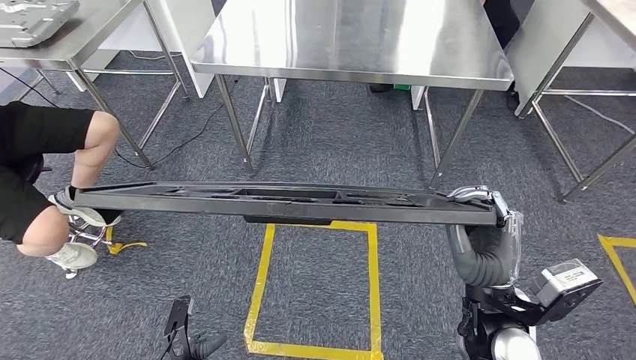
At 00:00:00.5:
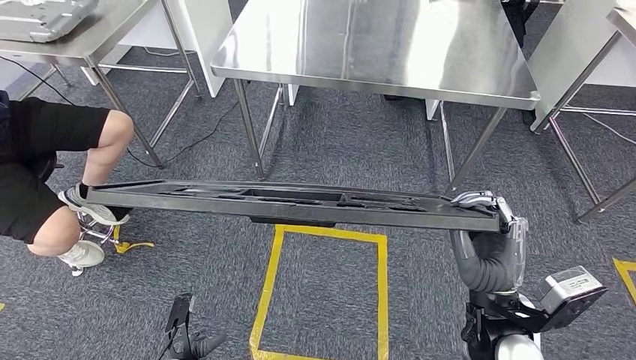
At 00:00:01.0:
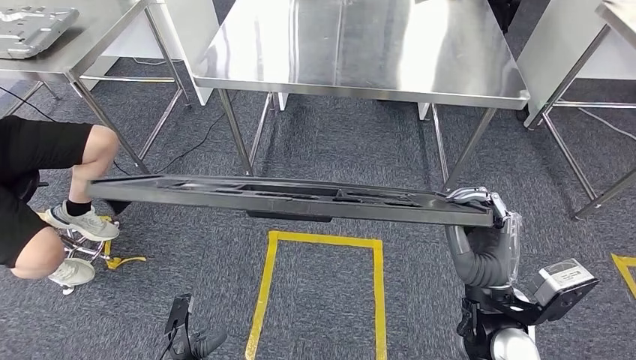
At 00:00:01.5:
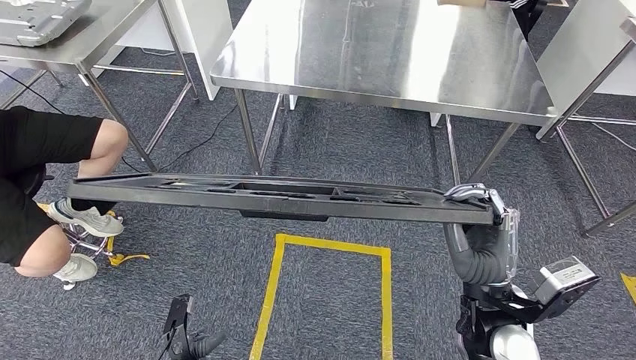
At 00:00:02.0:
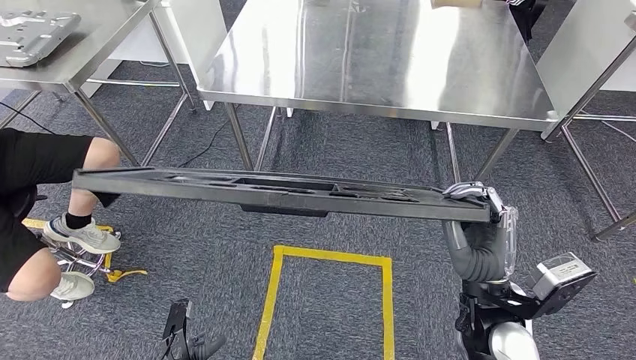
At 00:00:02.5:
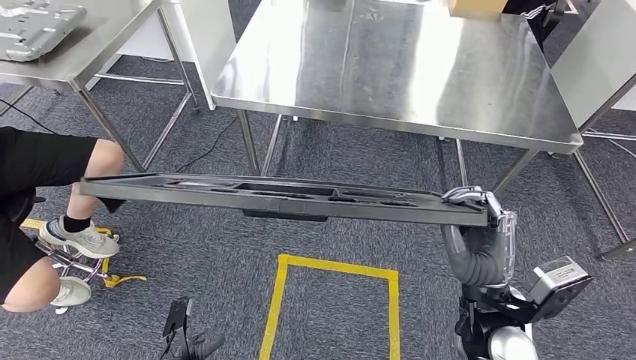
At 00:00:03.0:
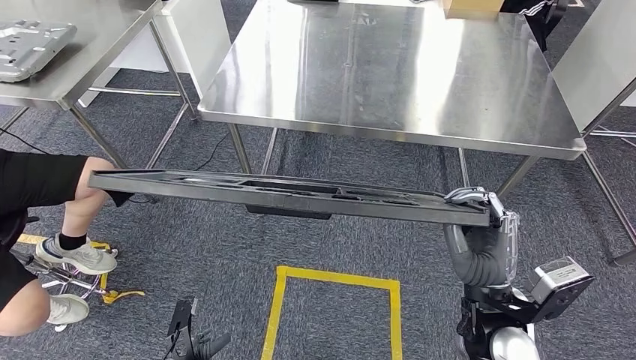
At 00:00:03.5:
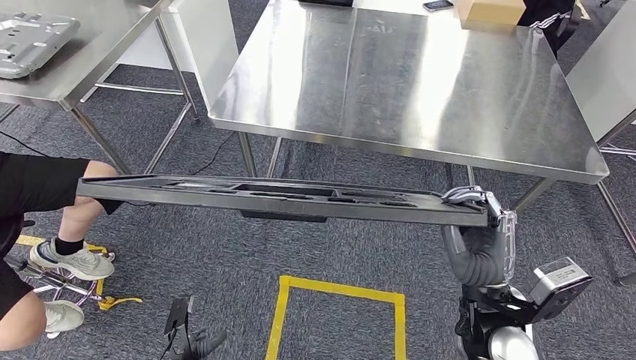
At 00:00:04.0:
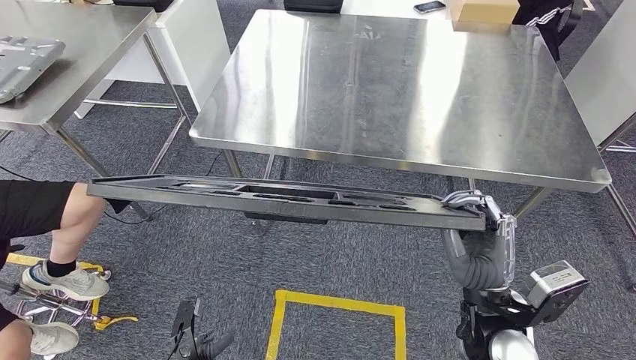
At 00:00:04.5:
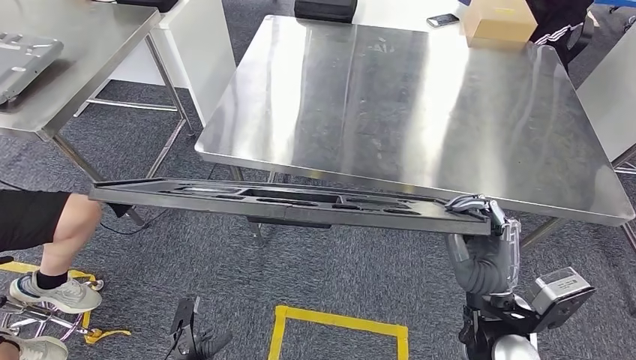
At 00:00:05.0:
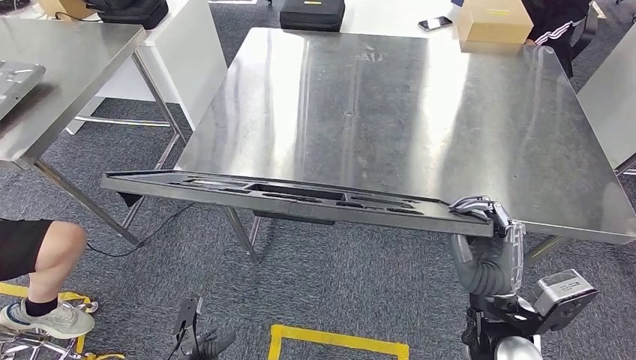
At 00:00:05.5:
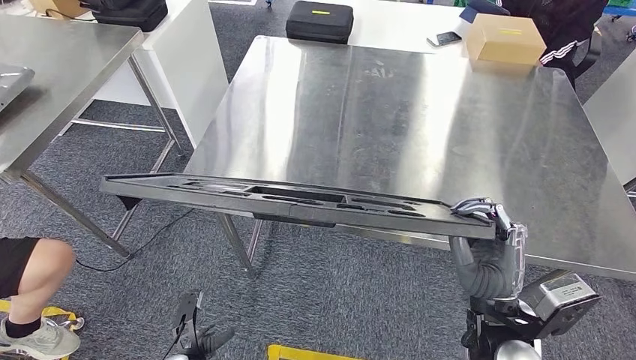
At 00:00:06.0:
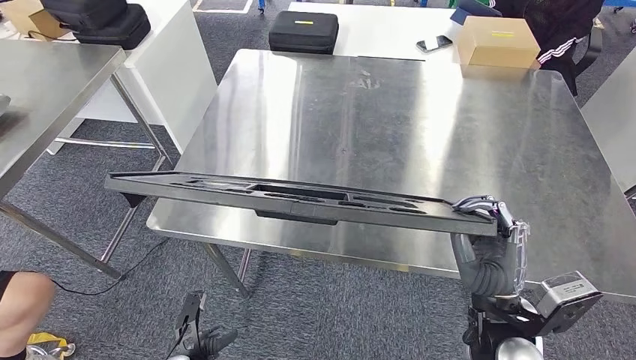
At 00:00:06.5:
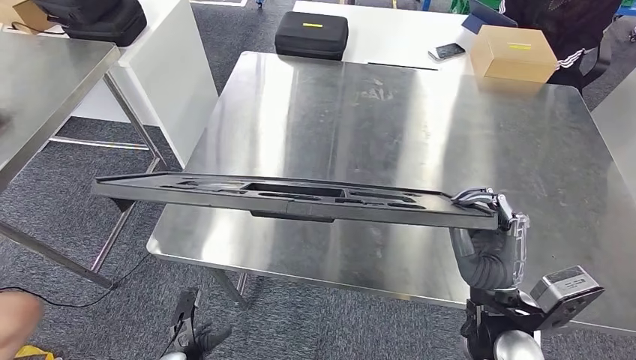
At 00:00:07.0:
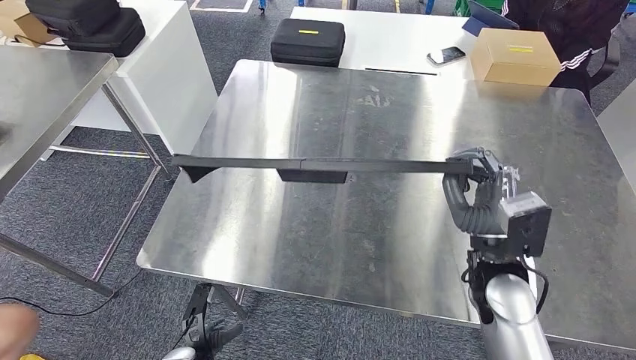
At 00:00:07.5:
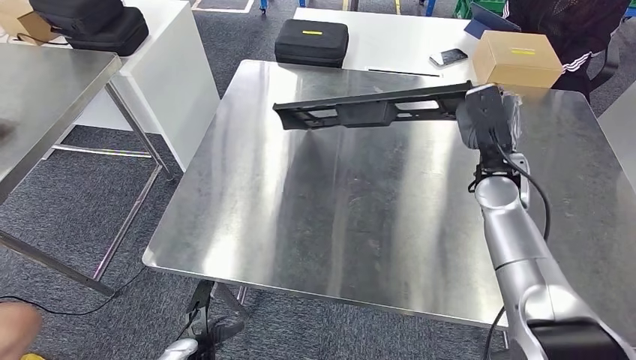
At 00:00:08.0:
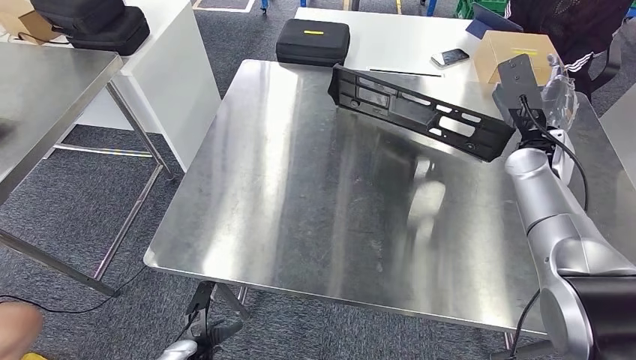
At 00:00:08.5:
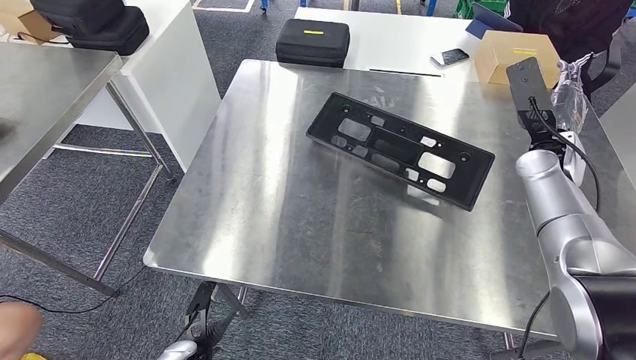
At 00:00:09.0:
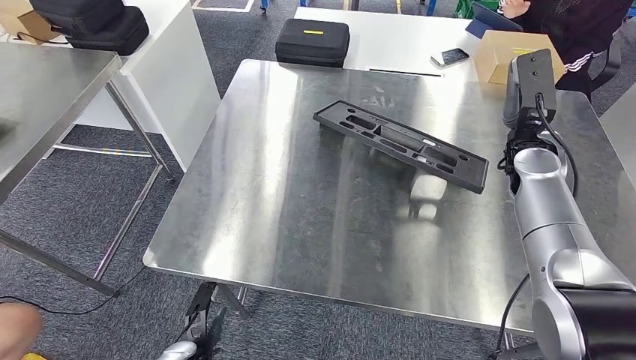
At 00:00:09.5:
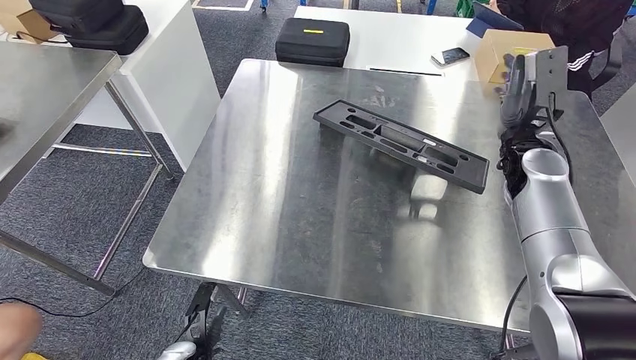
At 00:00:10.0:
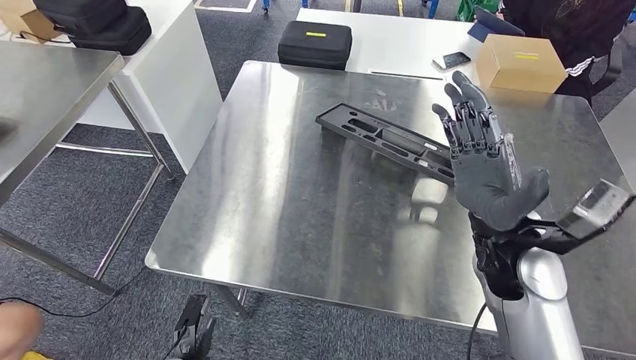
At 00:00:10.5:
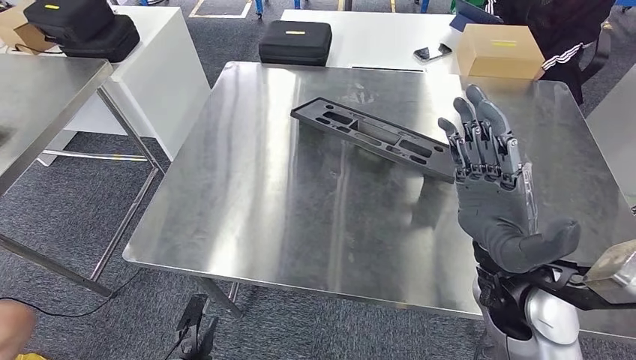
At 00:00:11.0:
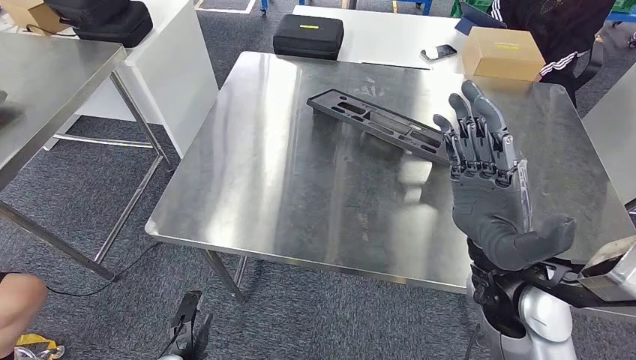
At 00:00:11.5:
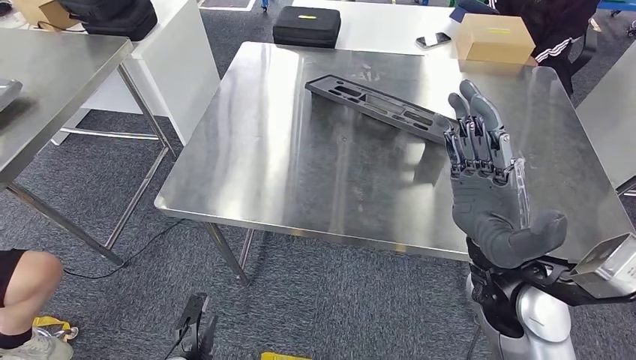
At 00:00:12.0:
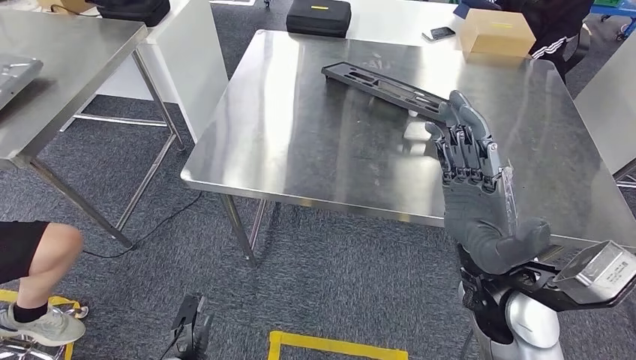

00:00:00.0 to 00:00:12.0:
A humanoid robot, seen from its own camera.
Step, 00:00:00.5 to 00:00:08.5: Insert the large material into the corresponding slot on the workbench.

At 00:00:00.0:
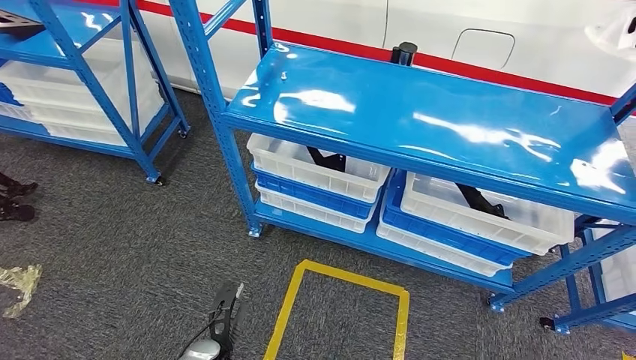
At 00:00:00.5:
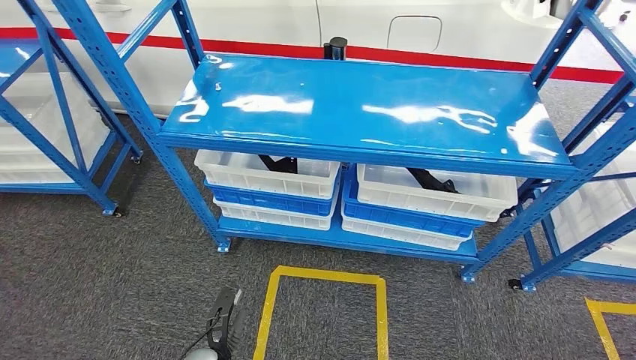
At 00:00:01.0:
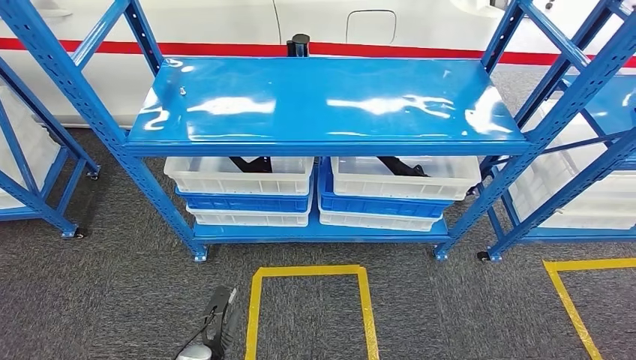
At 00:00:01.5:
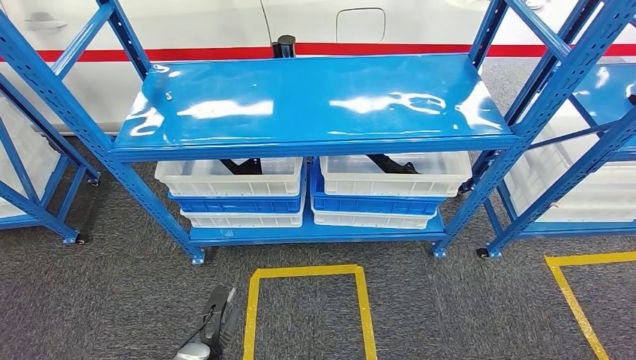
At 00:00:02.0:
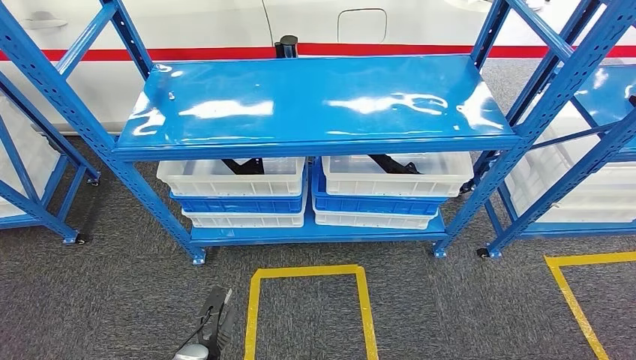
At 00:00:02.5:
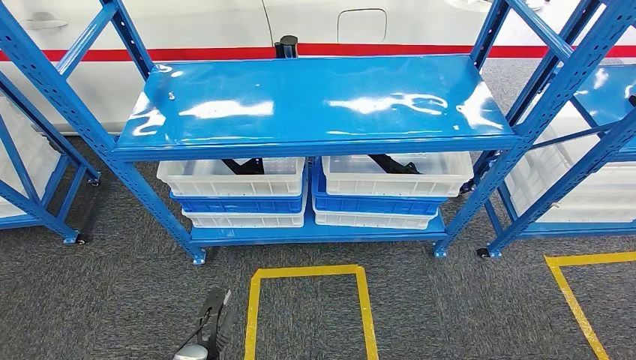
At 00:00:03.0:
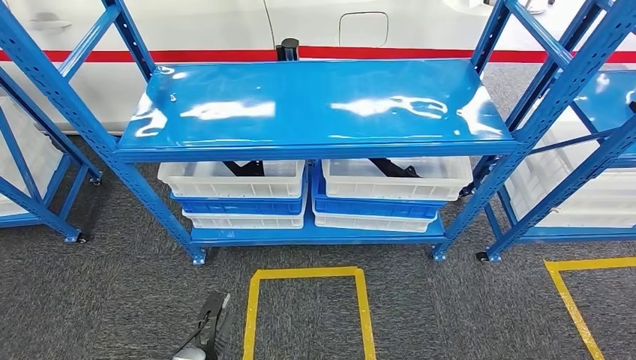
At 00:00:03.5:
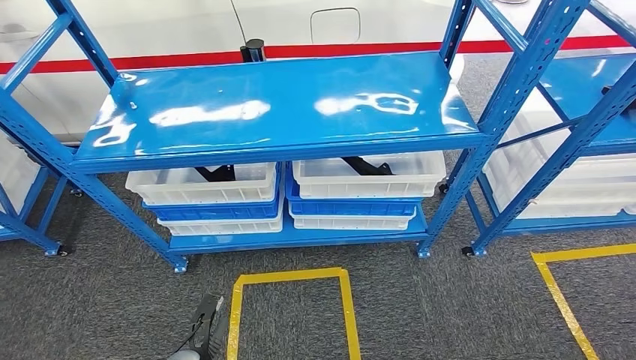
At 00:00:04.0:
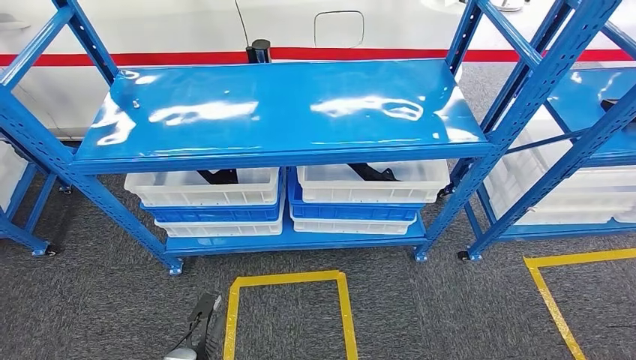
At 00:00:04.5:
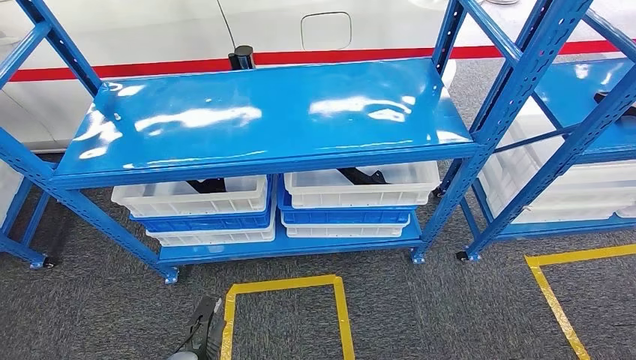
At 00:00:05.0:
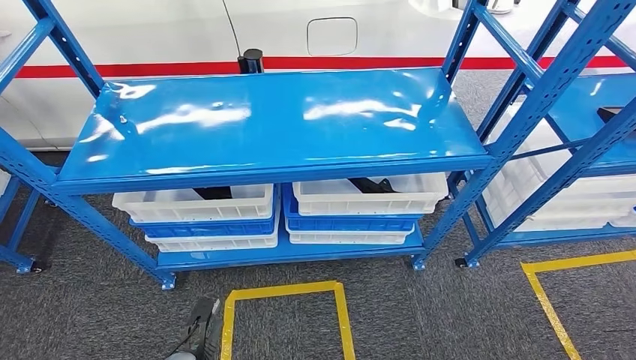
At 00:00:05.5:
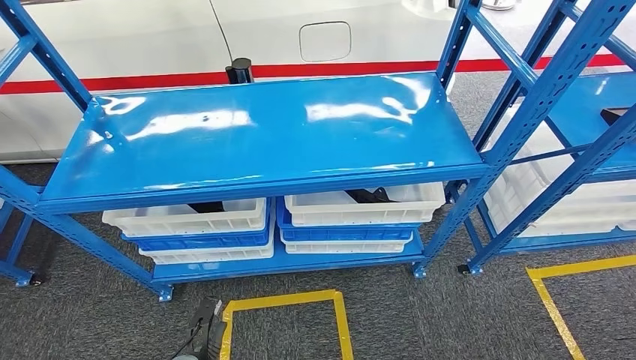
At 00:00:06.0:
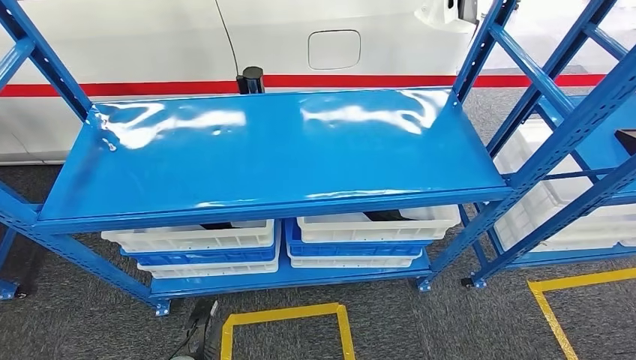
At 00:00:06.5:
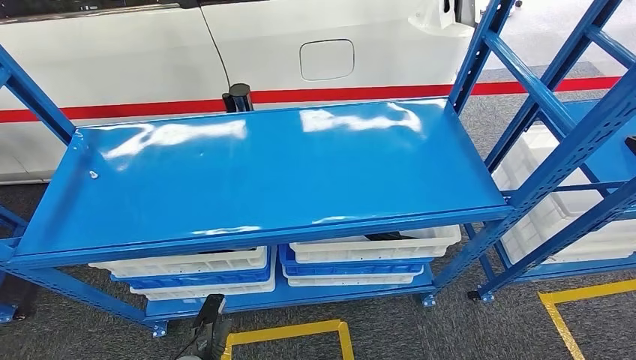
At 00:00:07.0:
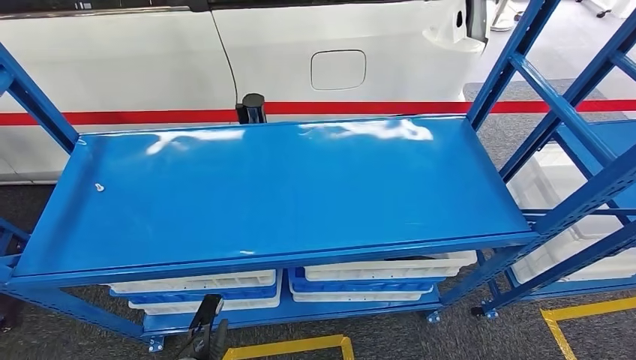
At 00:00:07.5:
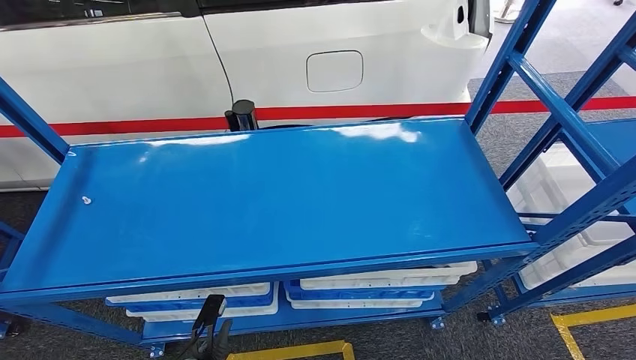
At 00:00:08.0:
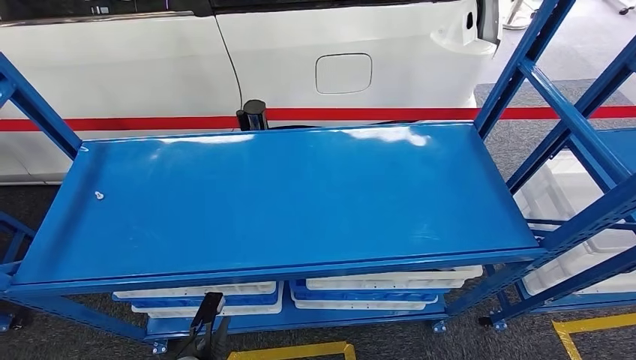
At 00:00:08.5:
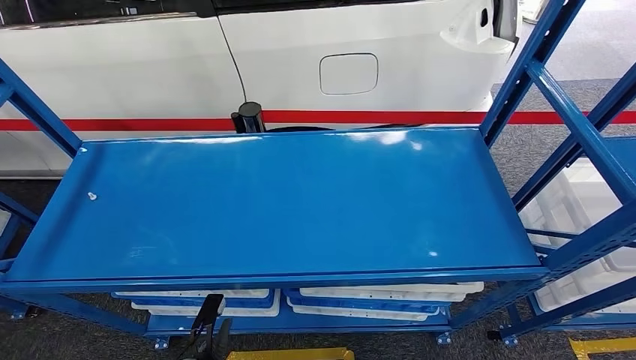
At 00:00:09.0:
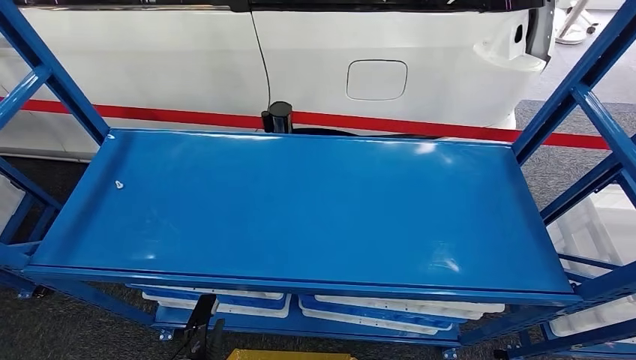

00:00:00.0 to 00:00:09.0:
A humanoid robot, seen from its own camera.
Step, 00:00:00.0 to 00:00:08.5: Return to the initial position at the shelf.
